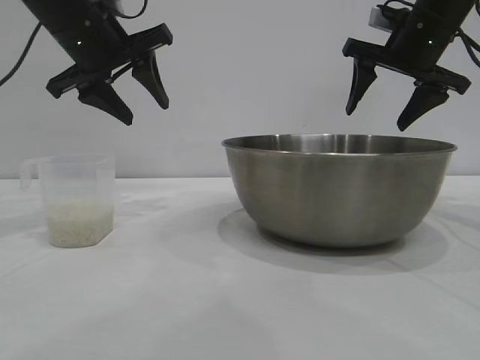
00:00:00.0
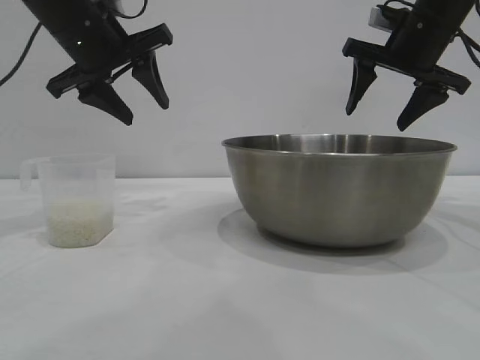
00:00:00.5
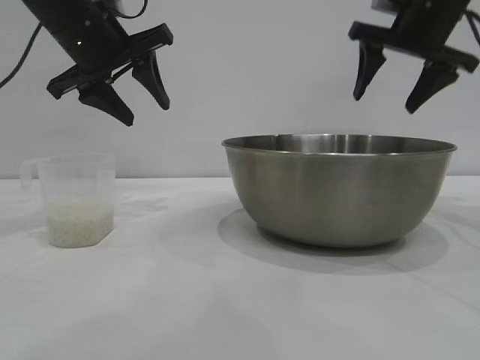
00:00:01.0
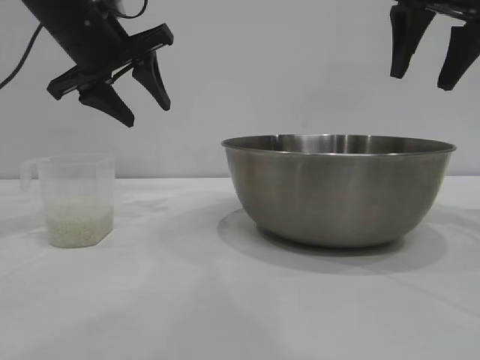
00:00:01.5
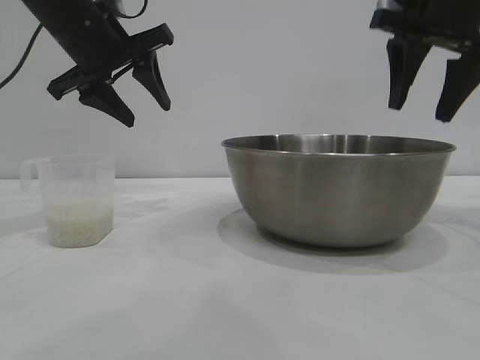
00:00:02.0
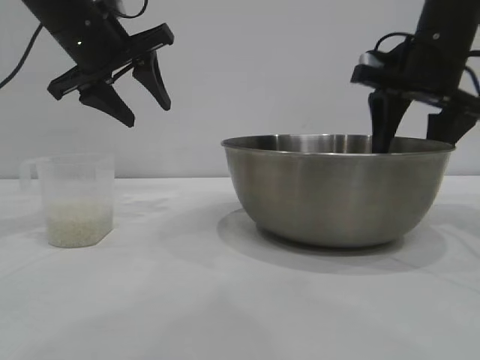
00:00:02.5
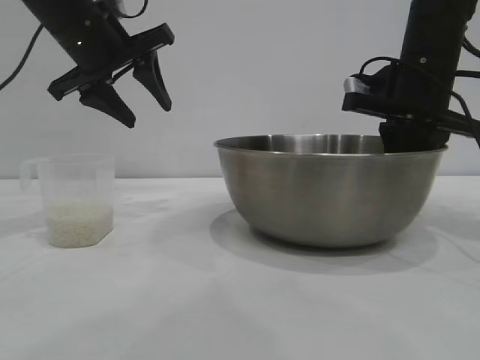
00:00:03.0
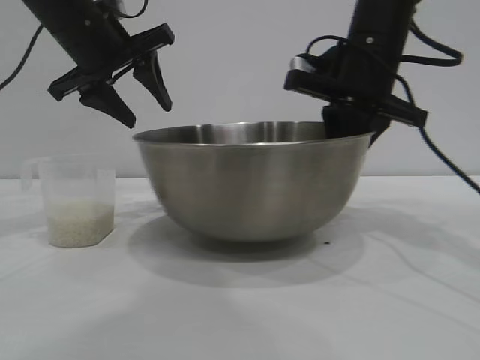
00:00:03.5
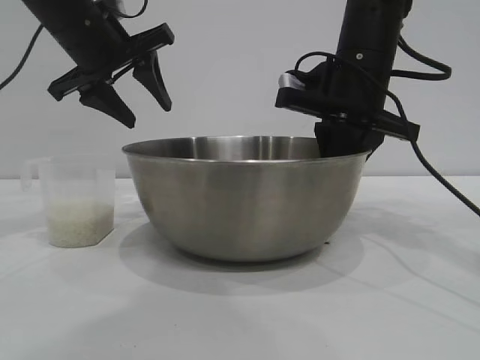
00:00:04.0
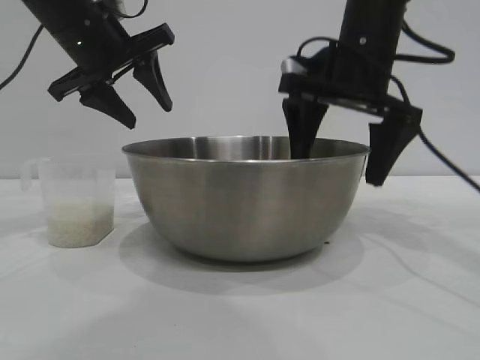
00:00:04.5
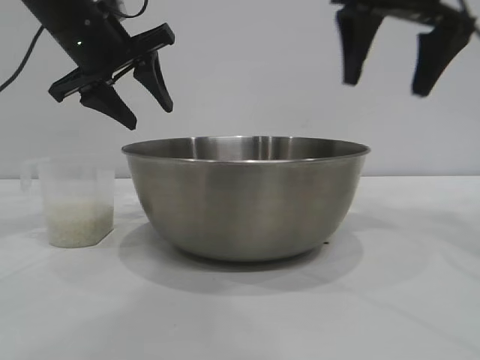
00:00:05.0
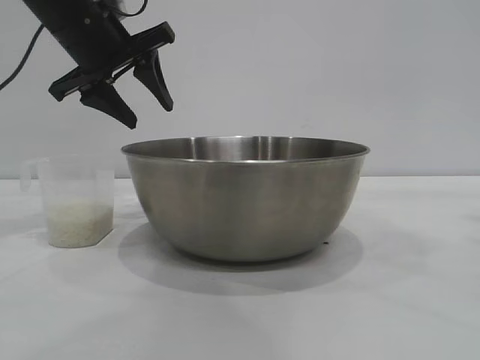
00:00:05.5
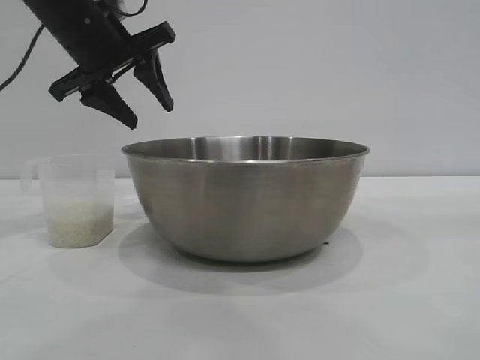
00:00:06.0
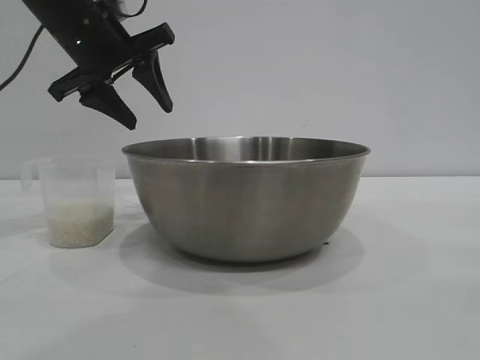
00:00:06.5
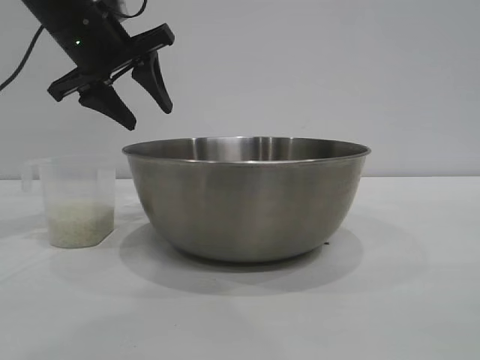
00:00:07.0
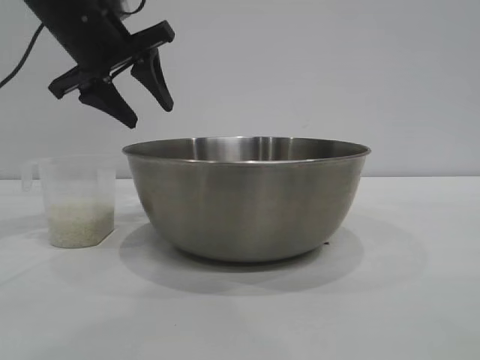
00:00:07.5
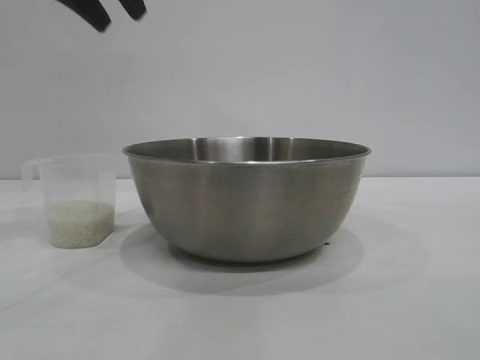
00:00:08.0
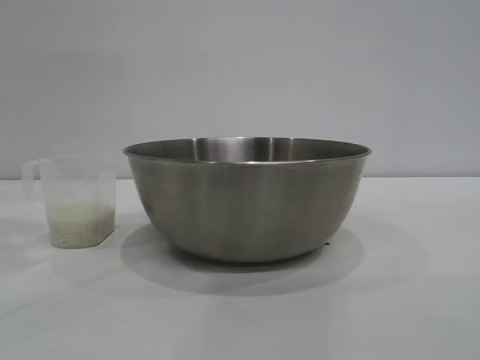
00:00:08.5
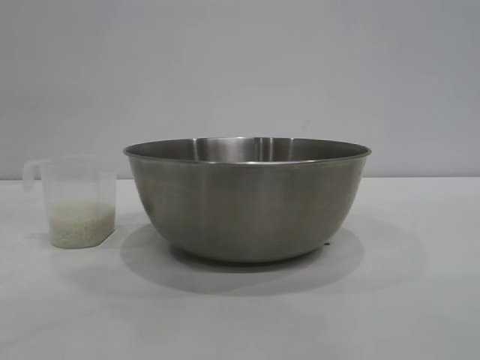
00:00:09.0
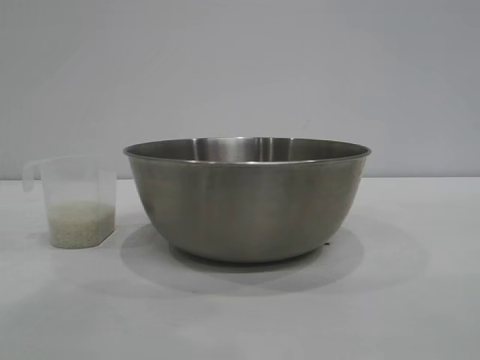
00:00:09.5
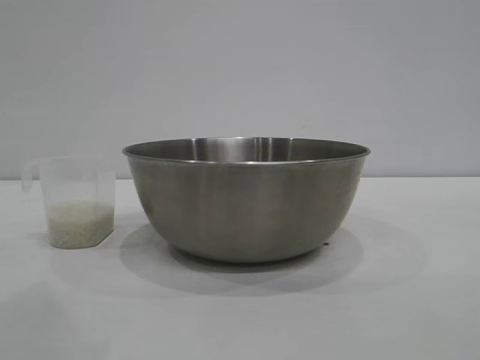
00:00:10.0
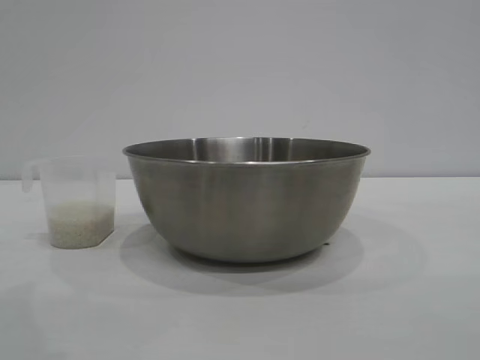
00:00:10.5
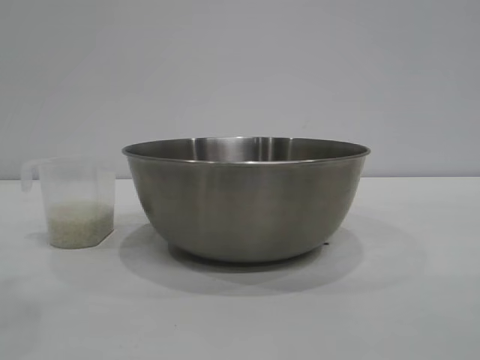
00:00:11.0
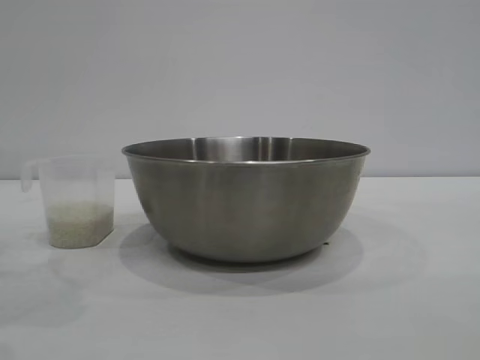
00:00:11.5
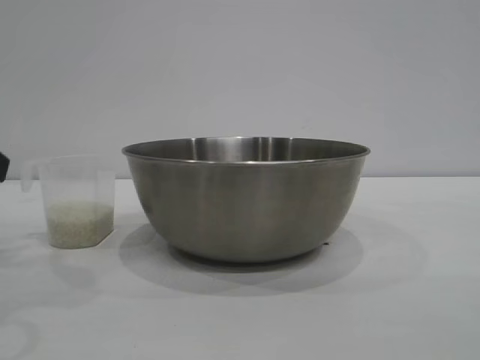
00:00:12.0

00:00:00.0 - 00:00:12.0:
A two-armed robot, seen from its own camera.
Task of the whole recording: the right gripper grasp the rice container and place it in the center of the table, the left gripper grasp the rice scoop and pour the rice into the rice container.
Step, 00:00:00.0 - 00:00:04.5: Move the bowl to the center of view with the right gripper.

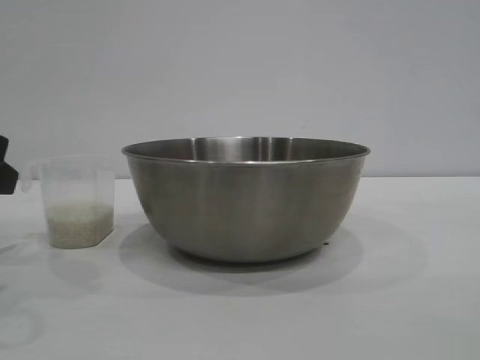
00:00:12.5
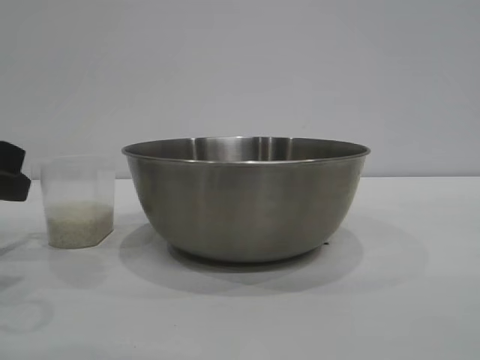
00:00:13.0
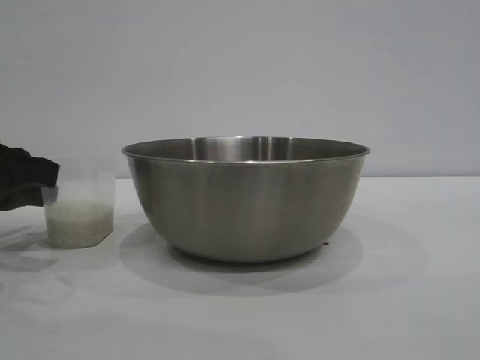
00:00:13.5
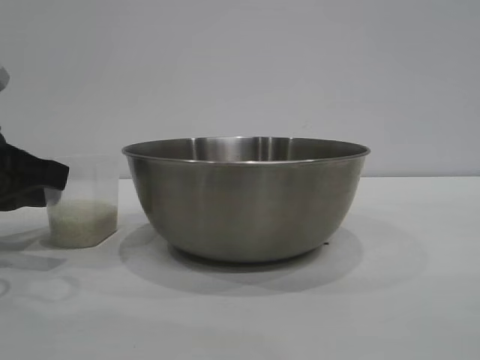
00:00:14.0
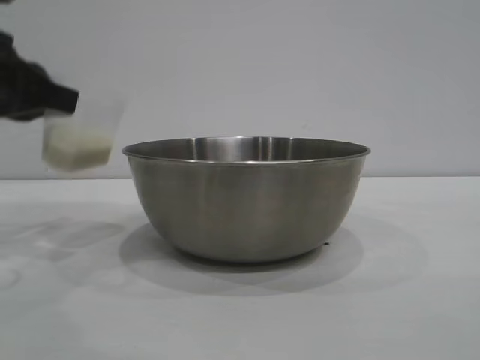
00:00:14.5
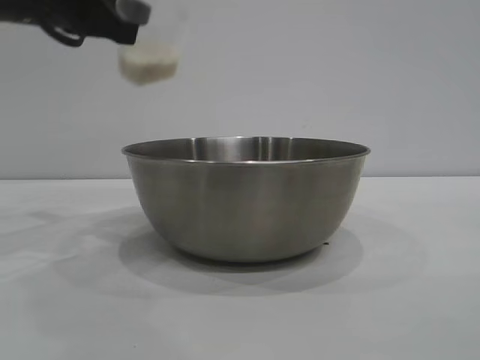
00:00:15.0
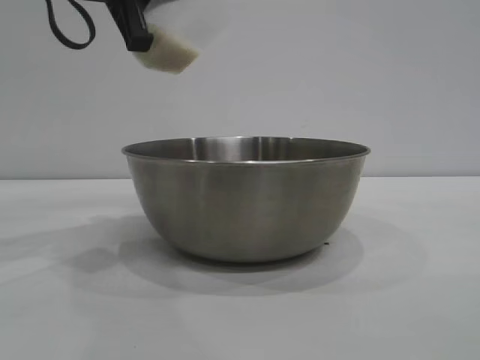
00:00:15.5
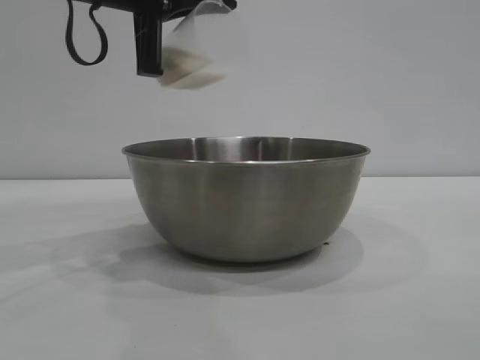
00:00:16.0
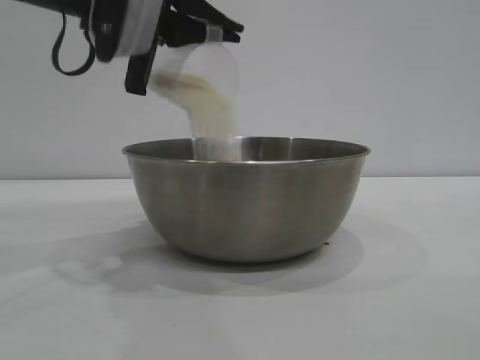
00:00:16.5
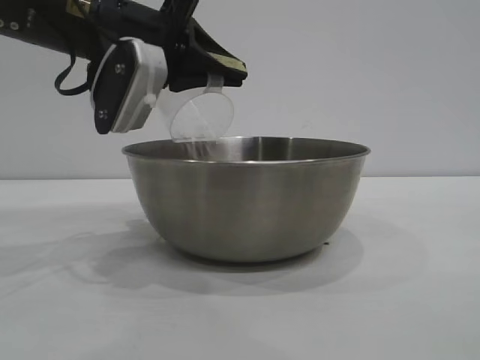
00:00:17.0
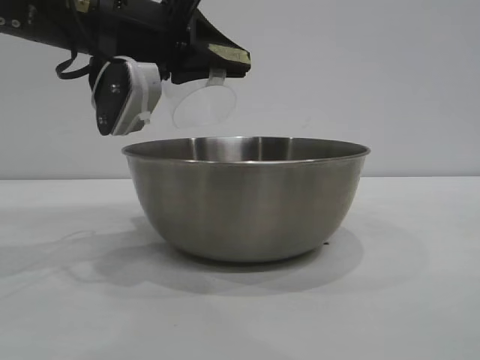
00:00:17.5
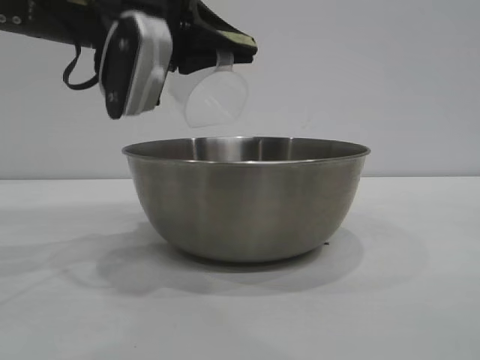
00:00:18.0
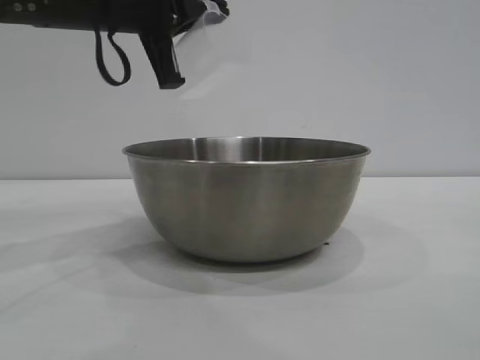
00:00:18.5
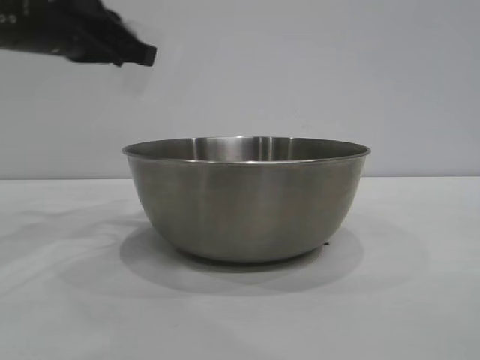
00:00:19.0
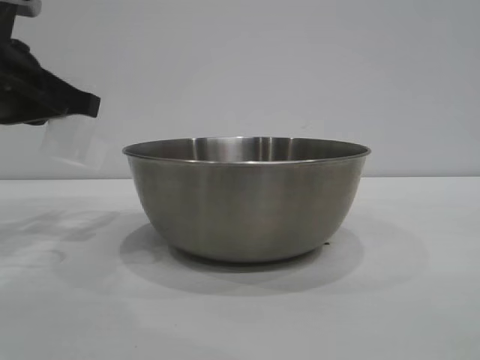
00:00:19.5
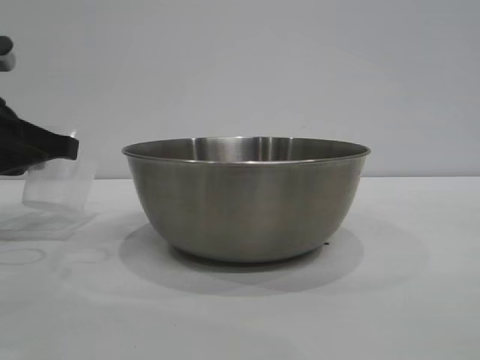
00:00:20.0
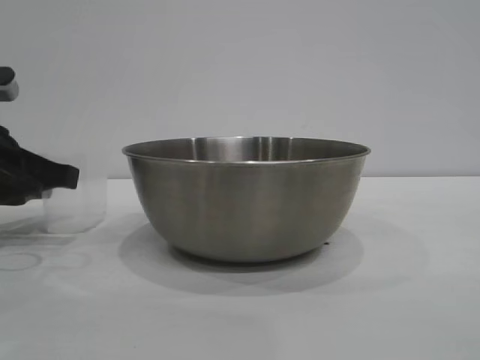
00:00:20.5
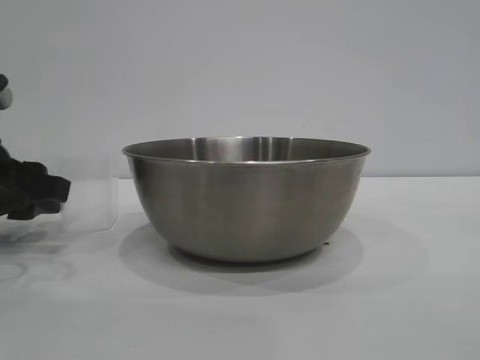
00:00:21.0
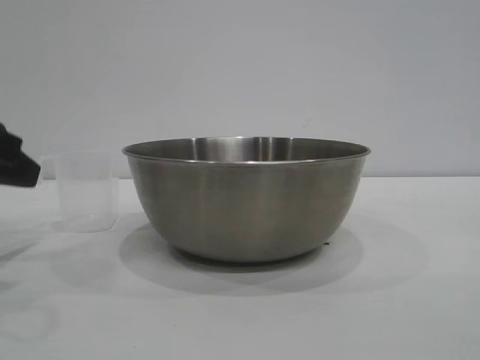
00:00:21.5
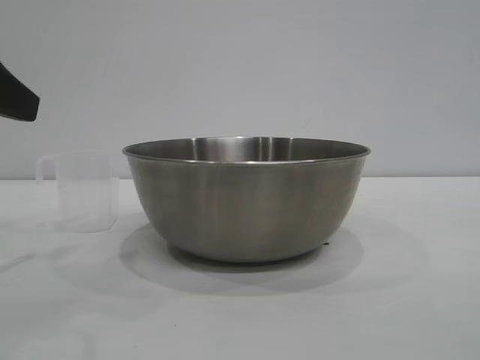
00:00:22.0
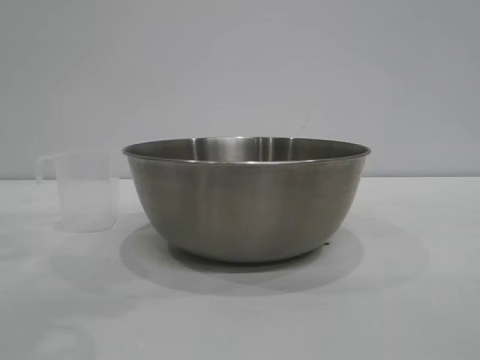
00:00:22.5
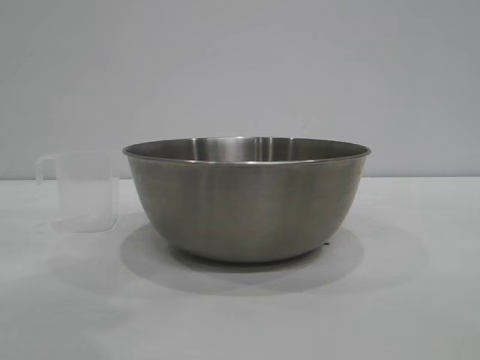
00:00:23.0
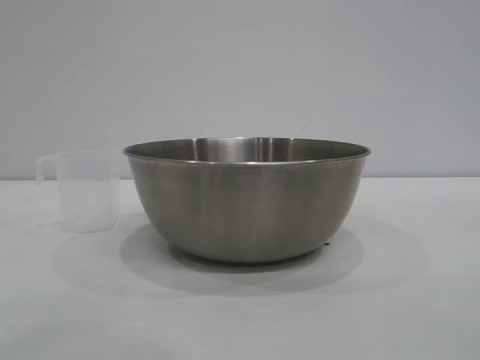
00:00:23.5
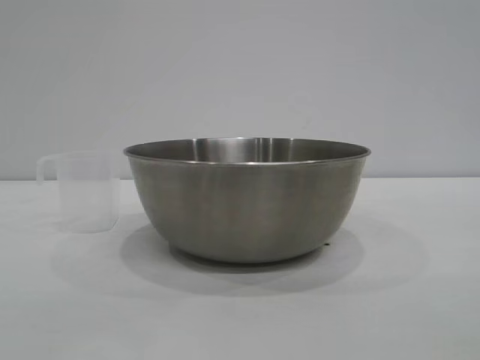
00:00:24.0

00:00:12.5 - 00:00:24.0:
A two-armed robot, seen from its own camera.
Task of the whole recording: the right gripper grasp the rice container and place it in the center of the table, the left gripper grasp the rice scoop and pour the rice into the rice container.
Step, 00:00:12.5 - 00:00:14.5: Pick up the cup with rice in it with the left gripper.
Step, 00:00:15.0 - 00:00:18.0: Pour the rice from the cup into the bowl with the left gripper.
Step, 00:00:18.5 - 00:00:21.0: Place the cup on the table with the left gripper.
